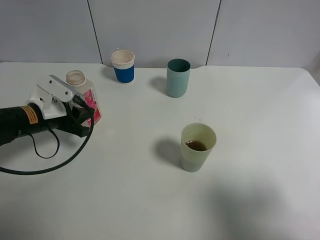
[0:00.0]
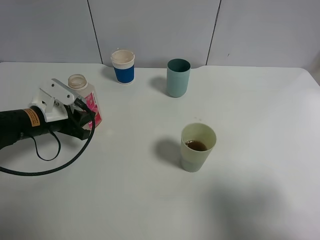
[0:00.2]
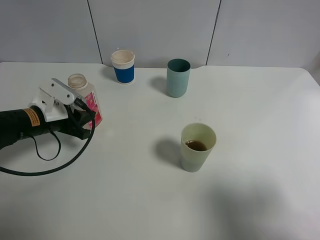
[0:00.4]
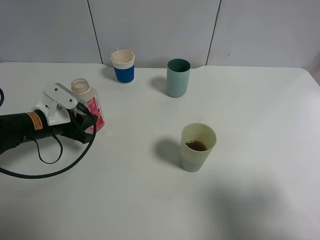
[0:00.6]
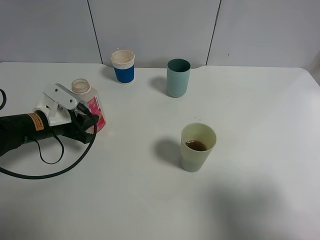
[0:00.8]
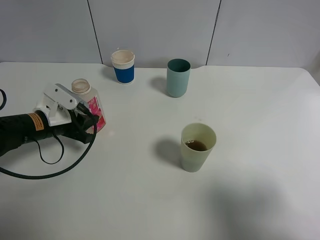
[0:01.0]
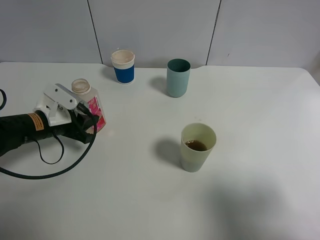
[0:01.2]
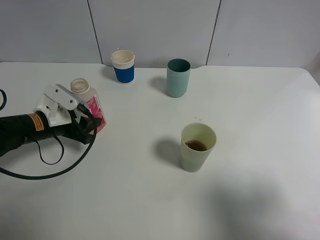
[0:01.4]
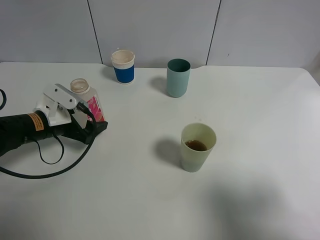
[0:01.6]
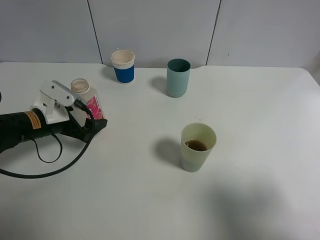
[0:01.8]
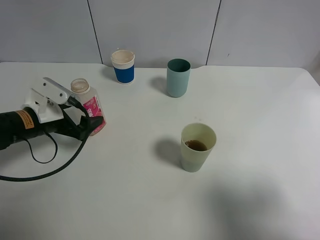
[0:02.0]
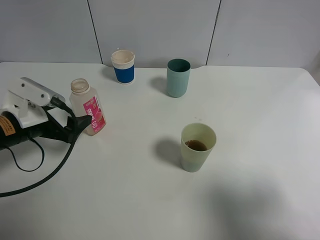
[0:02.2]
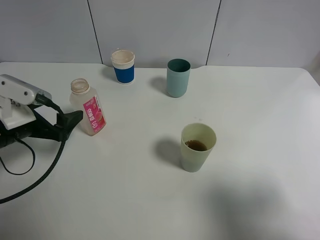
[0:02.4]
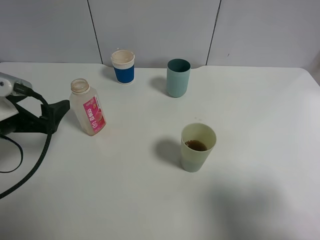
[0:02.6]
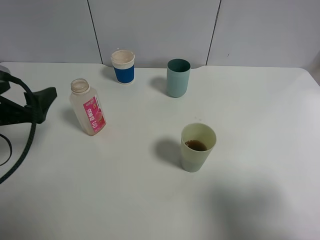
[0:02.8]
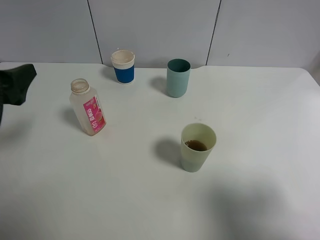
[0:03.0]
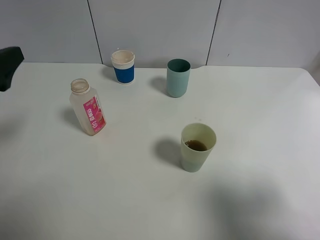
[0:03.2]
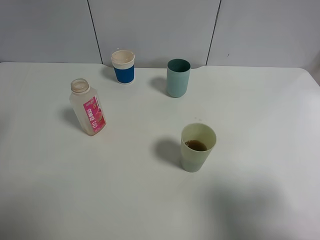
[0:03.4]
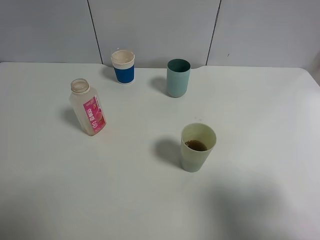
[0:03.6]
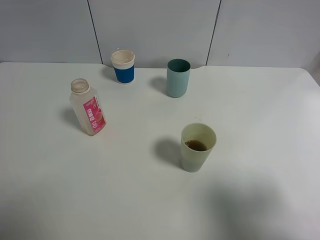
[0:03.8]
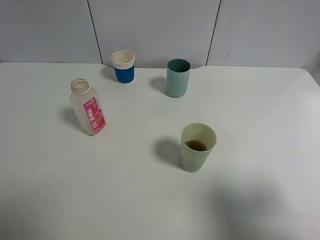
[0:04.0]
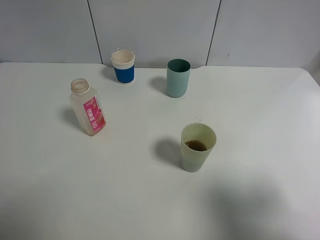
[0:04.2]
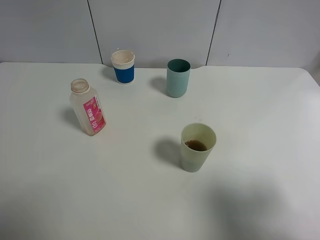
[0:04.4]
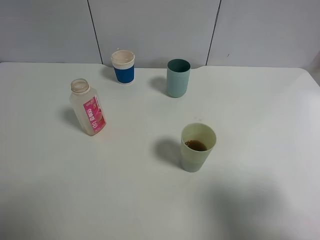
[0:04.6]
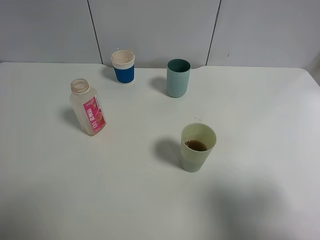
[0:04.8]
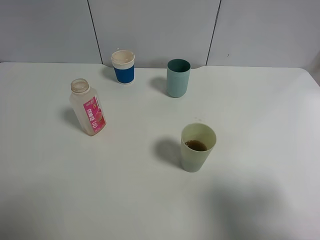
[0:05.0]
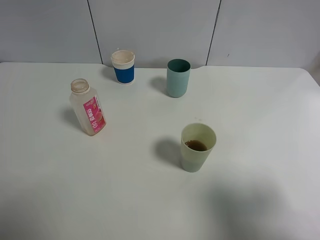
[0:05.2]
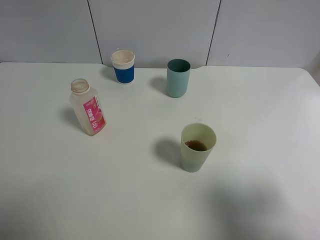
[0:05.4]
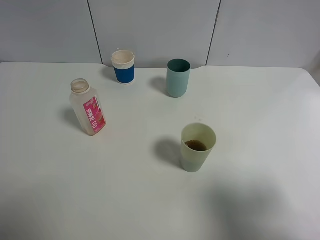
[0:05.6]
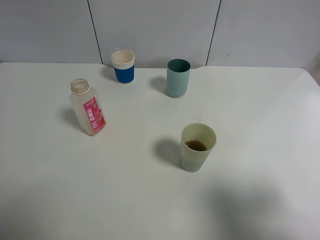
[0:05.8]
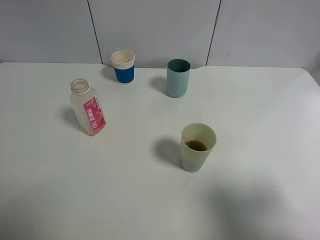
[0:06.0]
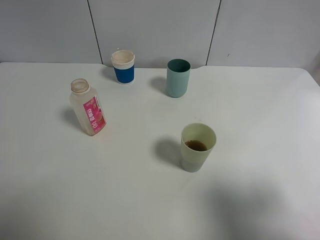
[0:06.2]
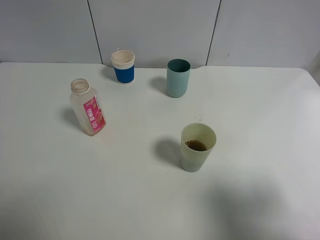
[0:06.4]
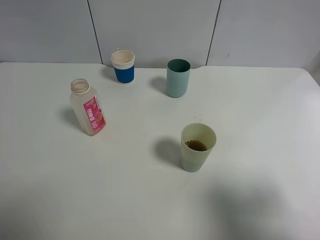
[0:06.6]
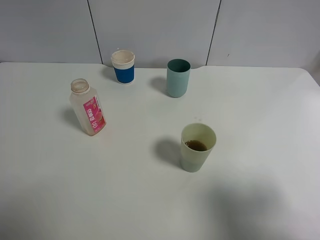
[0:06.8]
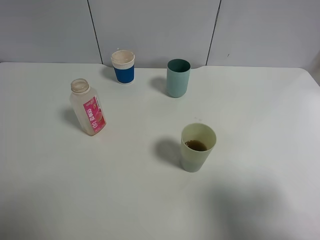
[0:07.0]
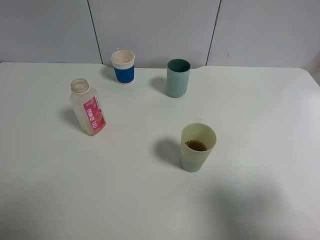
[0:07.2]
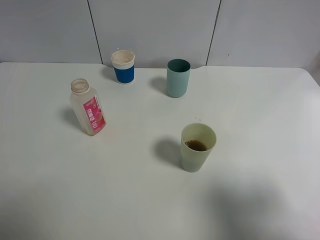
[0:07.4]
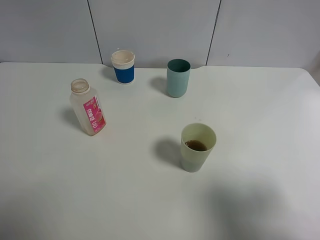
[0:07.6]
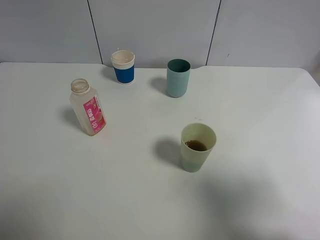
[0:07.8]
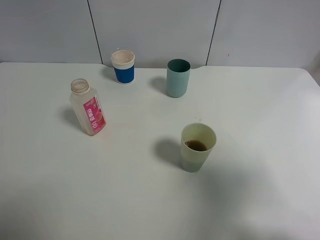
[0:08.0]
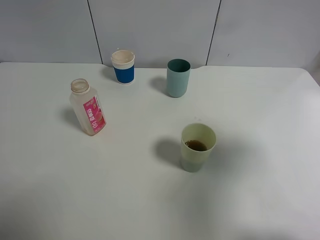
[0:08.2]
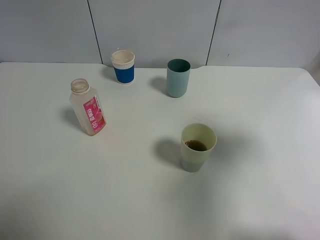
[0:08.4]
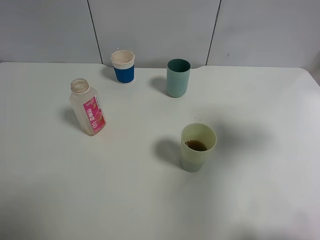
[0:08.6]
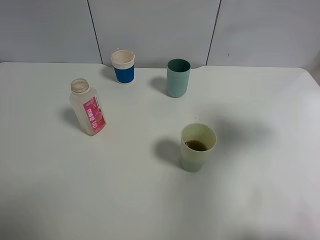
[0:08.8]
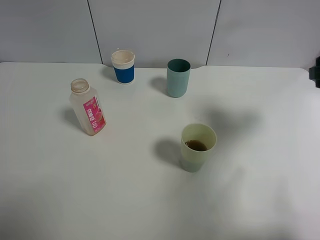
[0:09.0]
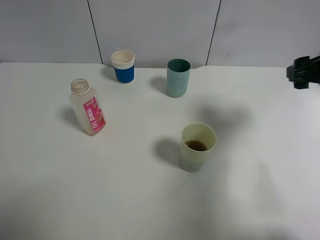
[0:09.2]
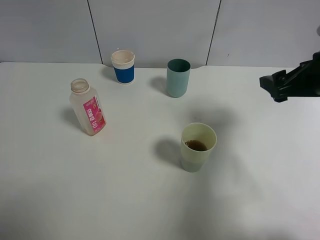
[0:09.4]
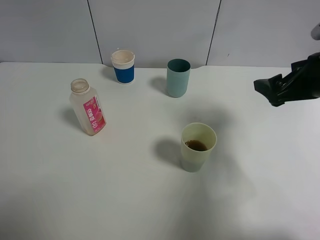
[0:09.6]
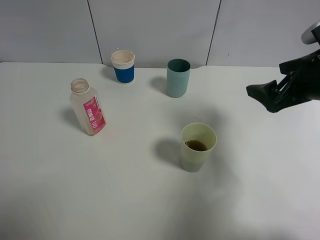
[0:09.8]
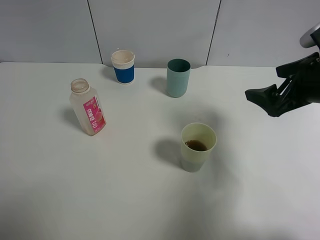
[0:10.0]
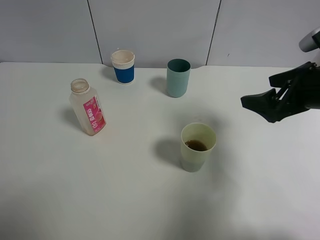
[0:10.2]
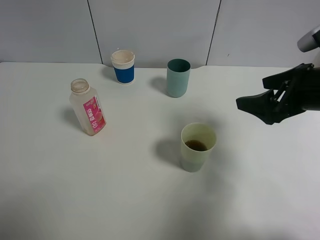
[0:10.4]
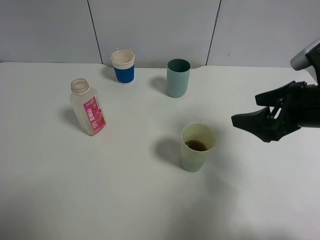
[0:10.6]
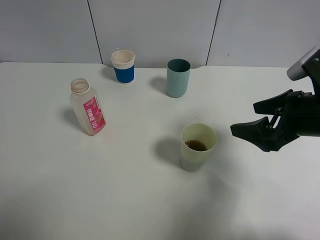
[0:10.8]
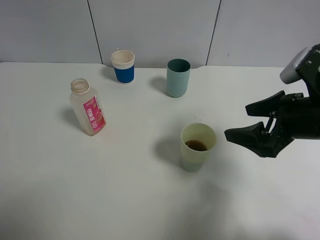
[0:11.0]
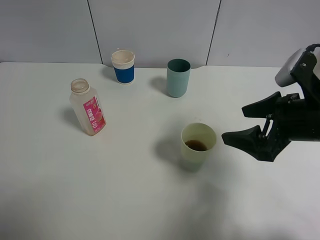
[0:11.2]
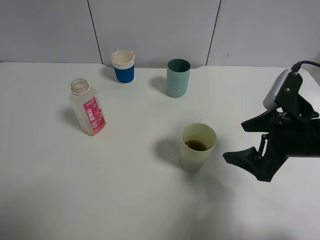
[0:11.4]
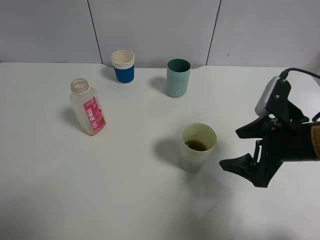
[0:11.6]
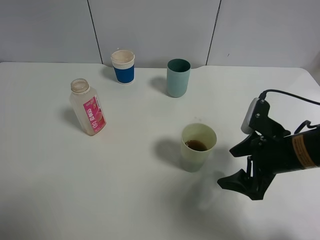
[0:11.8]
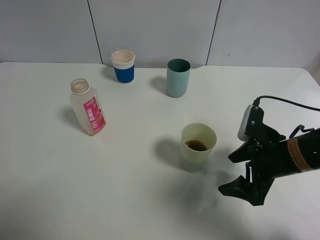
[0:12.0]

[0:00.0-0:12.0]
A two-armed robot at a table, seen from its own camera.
Task of the whole recording: use a clamp to hold the bottle of the drink, pour the beverage into a random cup, then clamp the cup containing the drink and pour the drink into another random cup.
0:00.0 to 0:01.6: The left gripper opens up.
0:01.6 to 0:03.0: The left gripper moves upward and backward, some 20 cm.
0:03.0 to 0:04.4: The left gripper moves backward and upward, roughly 20 cm.
0:06.0 to 0:07.6: Both grippers stay put.
0:07.6 to 0:09.0: The right gripper shifts some 20 cm forward.
0:09.0 to 0:10.4: The right gripper travels to the left by approximately 5 cm.
0:10.4 to 0:12.0: The right gripper moves downward, some 10 cm.

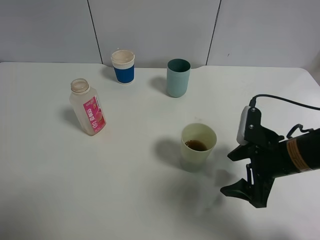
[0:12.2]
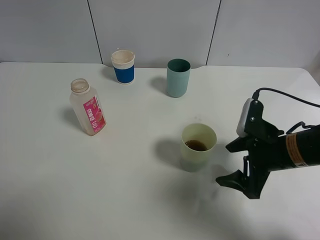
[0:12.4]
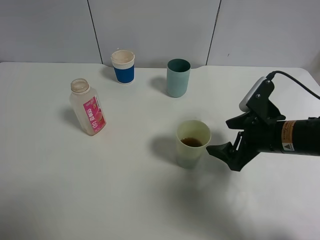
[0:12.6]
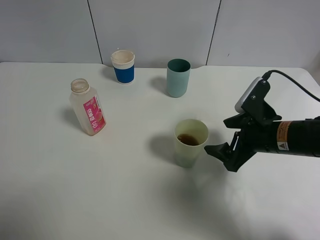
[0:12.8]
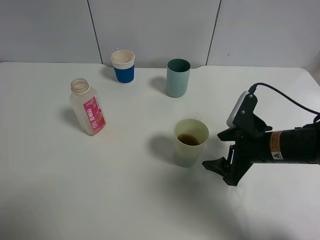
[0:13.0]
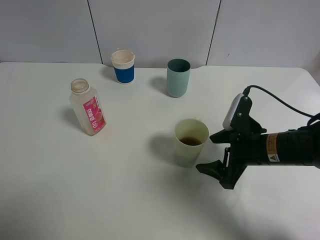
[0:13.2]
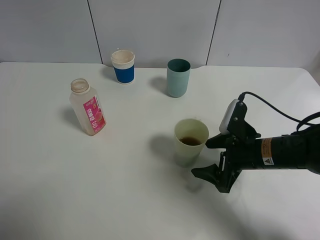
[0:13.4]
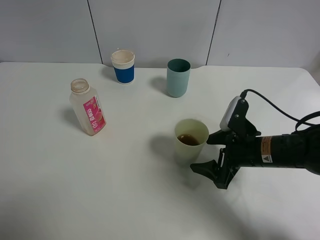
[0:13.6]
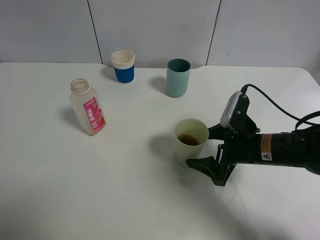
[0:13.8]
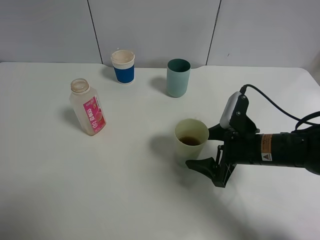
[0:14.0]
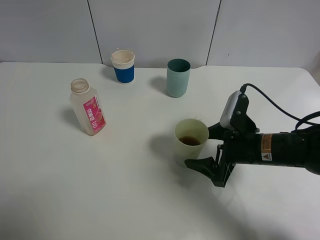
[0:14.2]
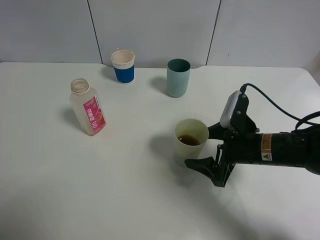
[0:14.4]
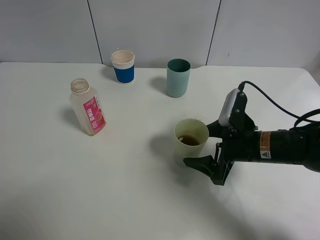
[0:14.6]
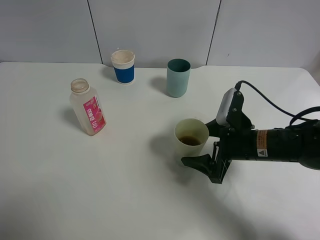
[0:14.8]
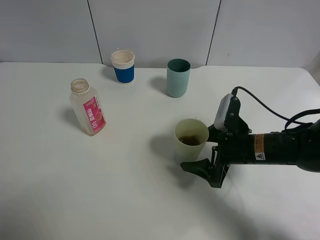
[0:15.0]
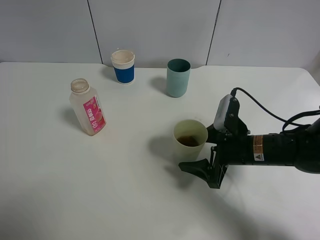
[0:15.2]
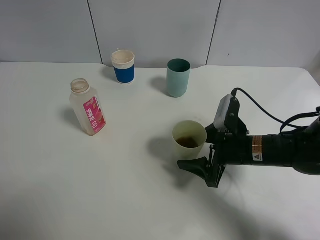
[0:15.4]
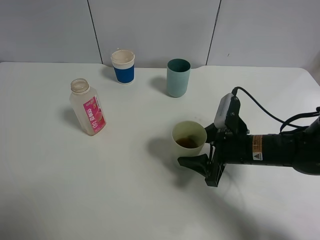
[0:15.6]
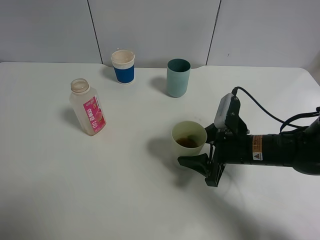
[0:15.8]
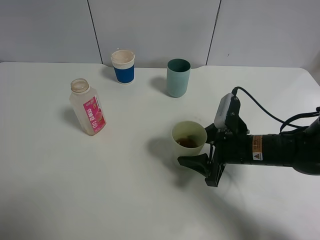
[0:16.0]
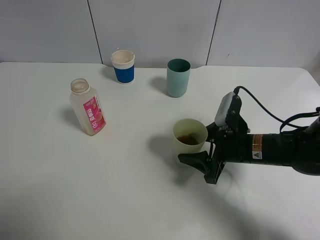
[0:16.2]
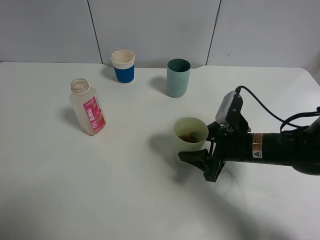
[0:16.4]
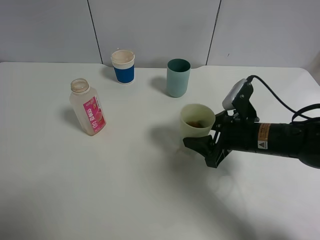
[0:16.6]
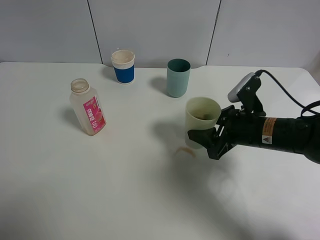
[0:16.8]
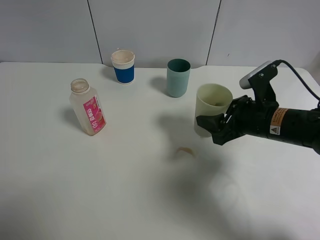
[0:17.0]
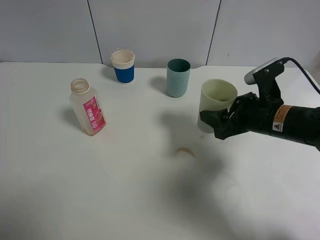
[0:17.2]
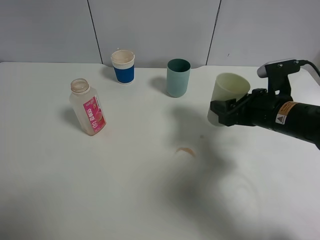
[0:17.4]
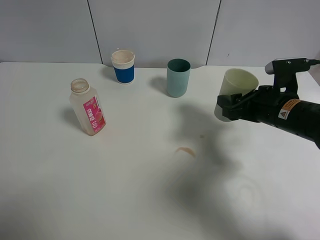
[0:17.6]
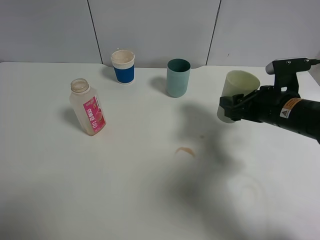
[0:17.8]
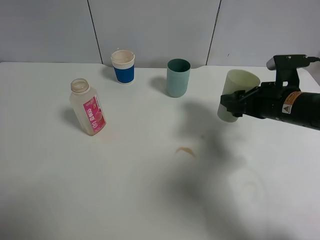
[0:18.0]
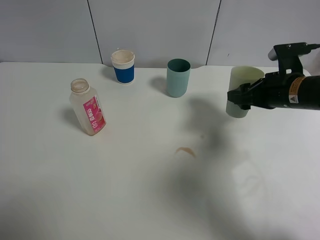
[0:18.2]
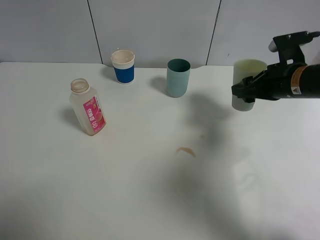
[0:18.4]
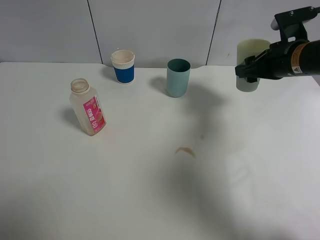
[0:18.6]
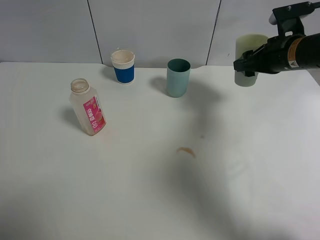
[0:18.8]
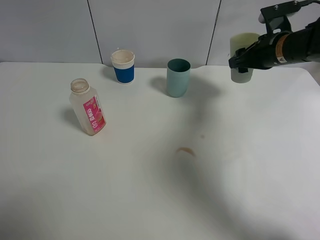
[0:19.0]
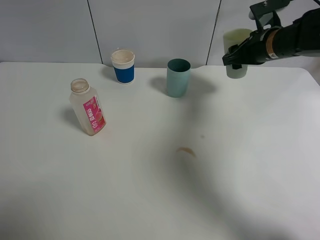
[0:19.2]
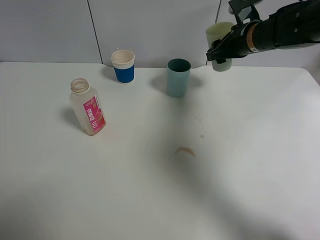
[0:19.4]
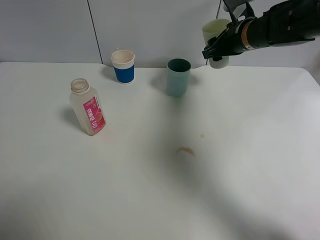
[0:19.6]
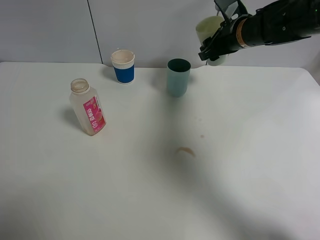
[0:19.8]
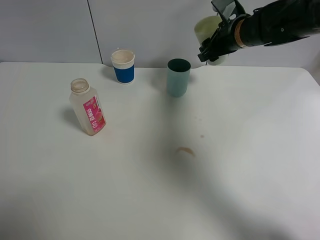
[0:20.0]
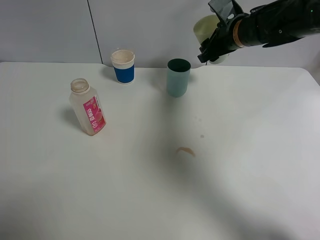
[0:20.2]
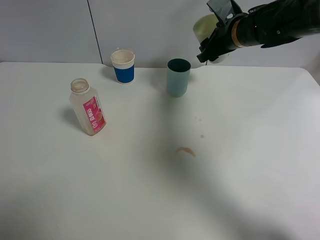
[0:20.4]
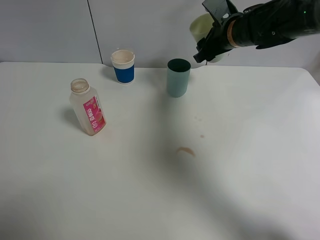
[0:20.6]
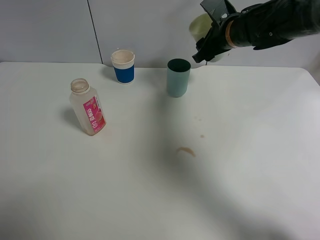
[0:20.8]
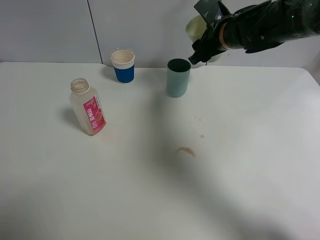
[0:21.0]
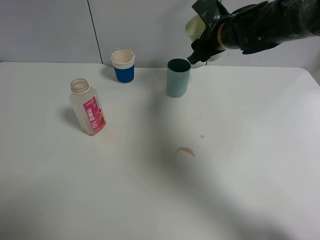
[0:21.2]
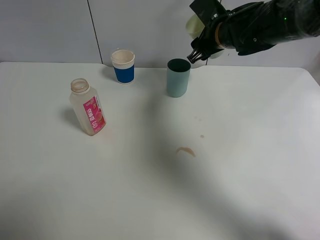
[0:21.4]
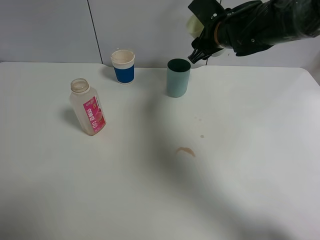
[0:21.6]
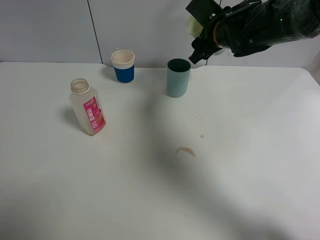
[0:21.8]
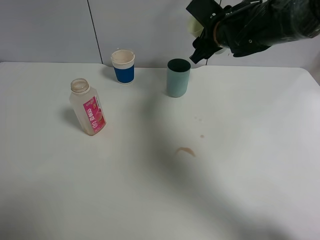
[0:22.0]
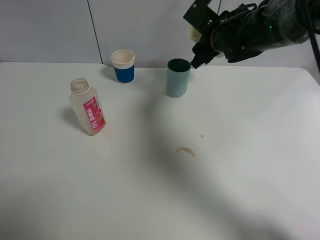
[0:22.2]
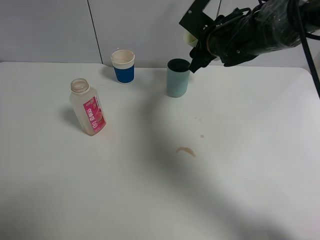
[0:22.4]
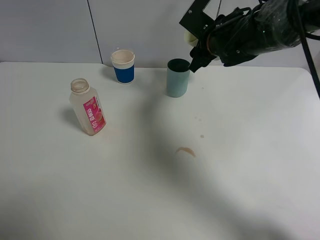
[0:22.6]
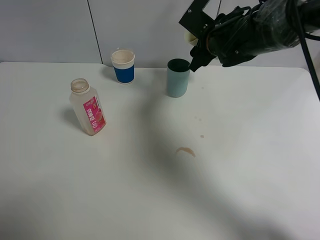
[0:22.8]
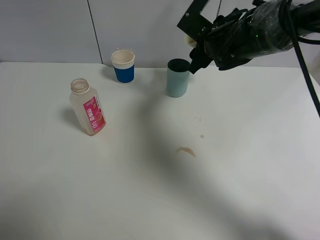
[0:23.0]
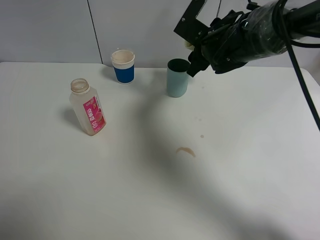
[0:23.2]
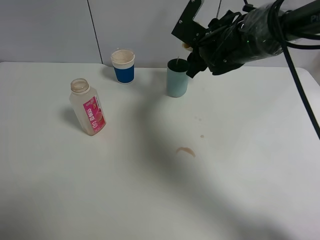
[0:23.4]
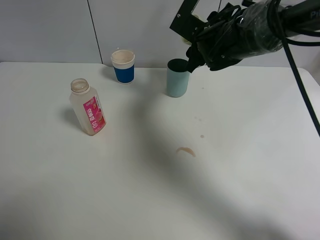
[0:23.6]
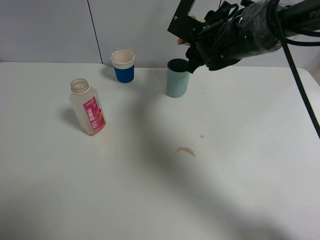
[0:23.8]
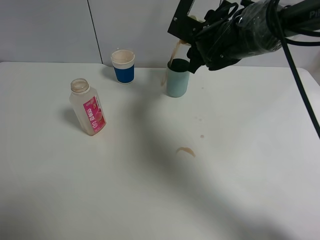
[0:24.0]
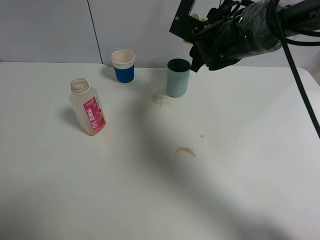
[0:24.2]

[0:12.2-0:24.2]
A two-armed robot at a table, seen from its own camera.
Task of the whole recording: use a clamp to hold the bottle of the drink, pour the beverage into a random cup, then clamp the cup containing the drink and pour the drink into another random cup.
Step, 0:12.2 to 0:16.4: Pick up the green plastic cup bottle with right gripper.
0:13.8 to 0:15.2: There are only small adjustments of the grippers.
0:15.2 to 0:16.6: The right gripper closes its fingers.
0:16.6 to 0:18.2: The right gripper moves to the right, upward and forward, roughly 10 cm.
0:18.2 to 0:19.8: The right gripper shifts roughly 15 cm forward and to the left.
0:19.8 to 0:21.2: The grippers move only a little.
0:21.2 to 0:22.6: The grippers stay close to where they were, moving slightly.
0:22.6 to 0:24.2: The grippers stay close to where they were, moving slightly.
